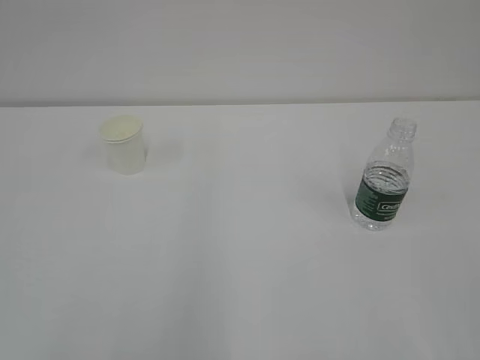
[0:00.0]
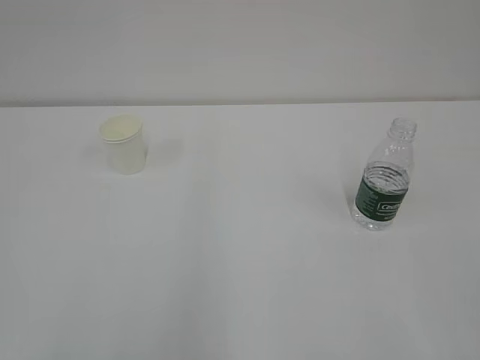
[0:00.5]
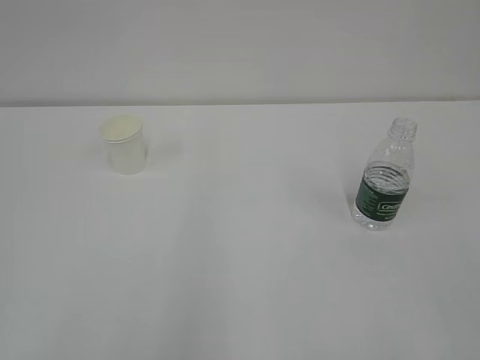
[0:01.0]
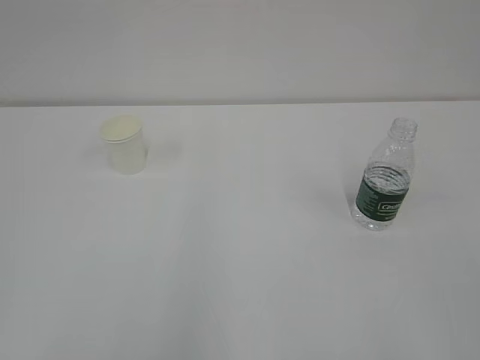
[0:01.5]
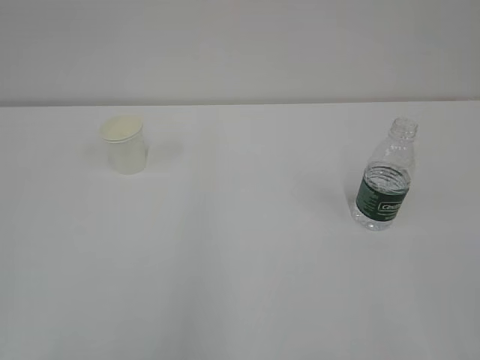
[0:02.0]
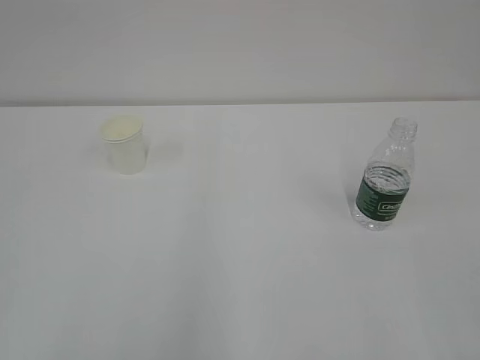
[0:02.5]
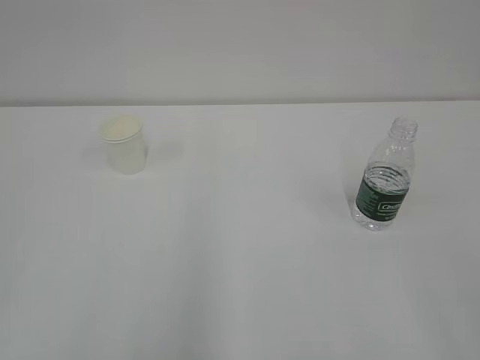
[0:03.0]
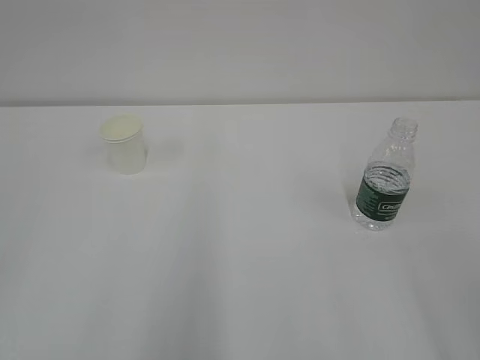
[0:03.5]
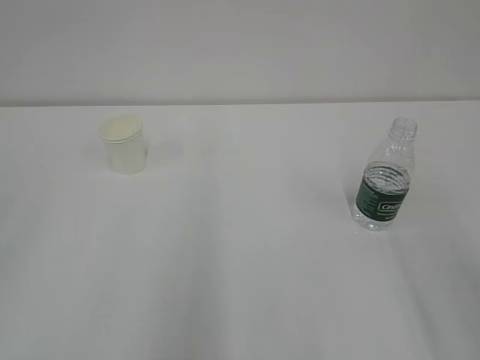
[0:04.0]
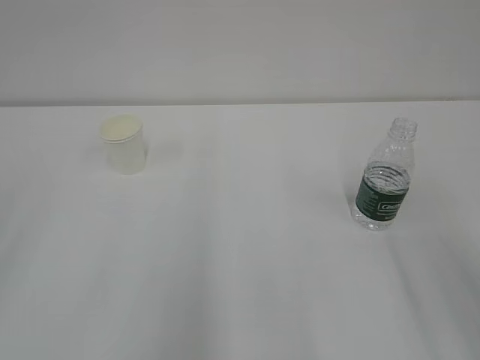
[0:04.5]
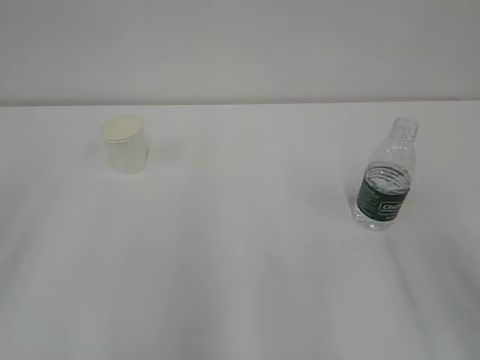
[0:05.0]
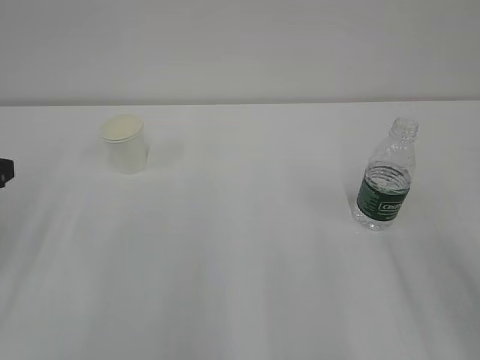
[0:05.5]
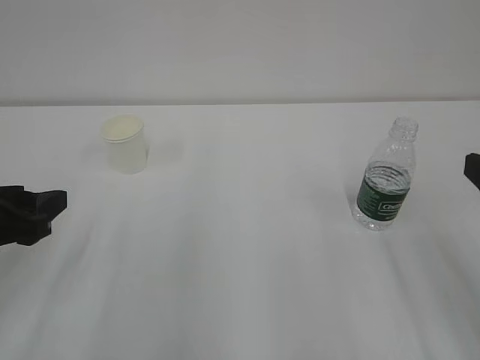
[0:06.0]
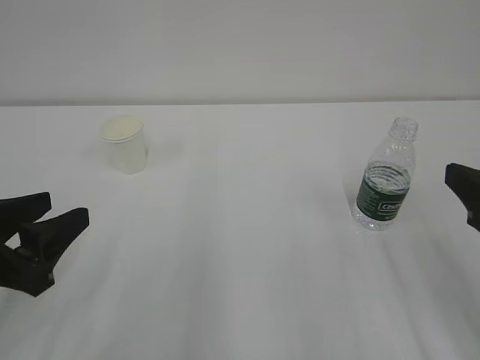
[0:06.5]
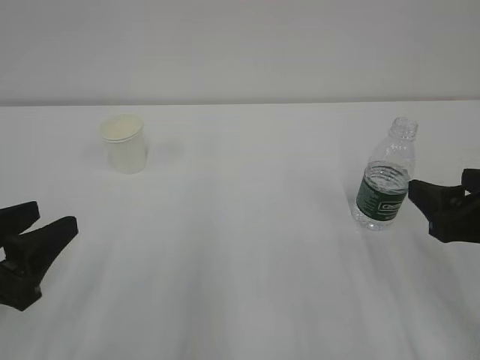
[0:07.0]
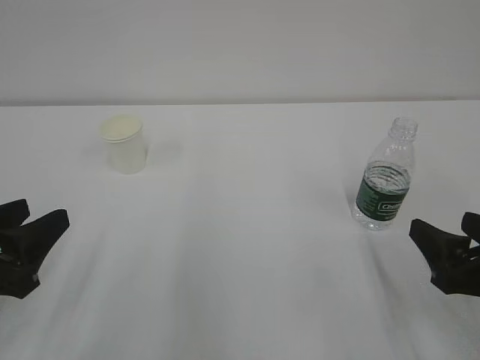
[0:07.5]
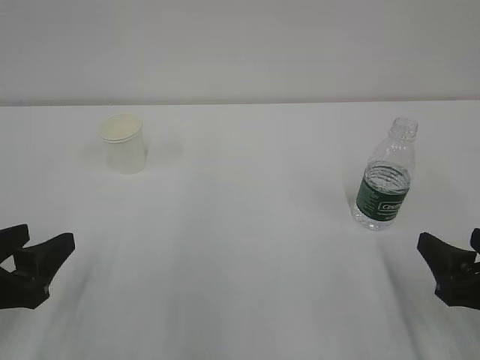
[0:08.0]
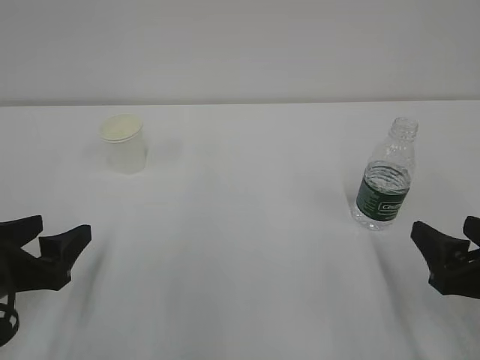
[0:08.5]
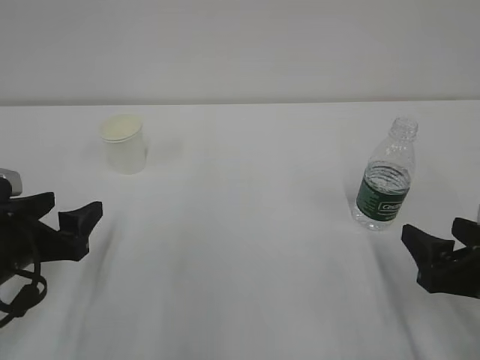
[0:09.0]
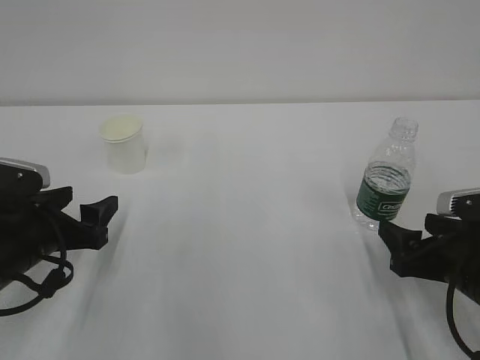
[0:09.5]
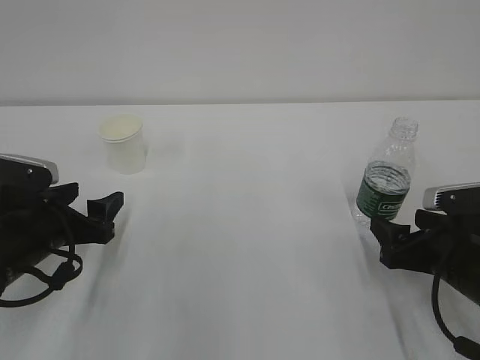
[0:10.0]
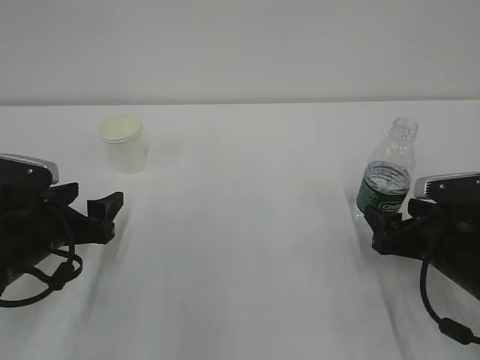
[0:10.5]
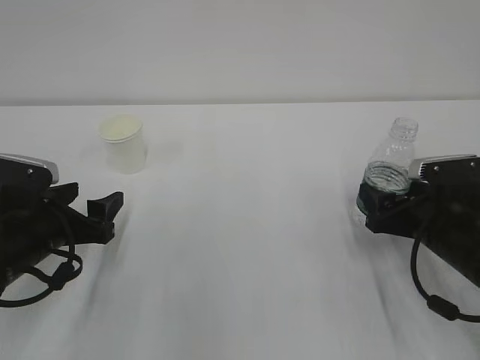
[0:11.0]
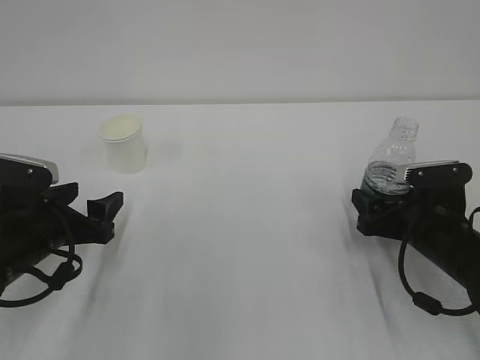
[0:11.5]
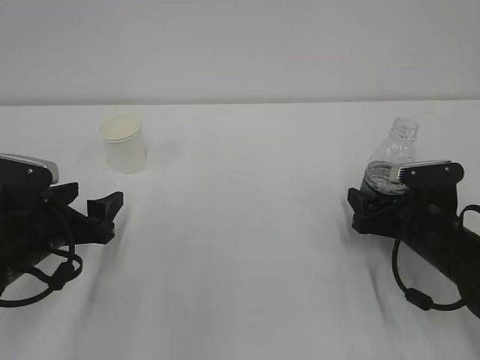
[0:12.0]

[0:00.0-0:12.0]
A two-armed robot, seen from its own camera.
0:04.0 to 0:06.0: The left gripper goes about 15 cm downward and forward.
0:06.0 to 0:08.0: The left gripper changes place by some 5 cm, and opens its fingers. Meanwhile the right gripper is displaced downward by approximately 10 cm.
0:08.0 to 0:10.0: The two grippers go some 10 cm forward.
0:10.0 to 0:12.0: The right gripper is displaced forward by some 5 cm.

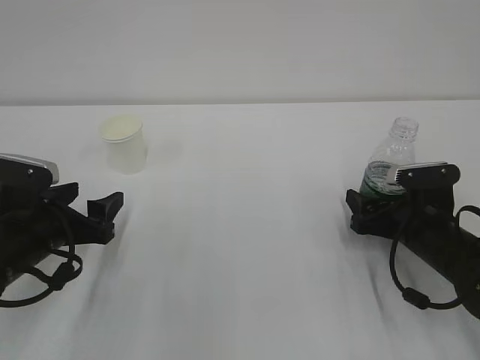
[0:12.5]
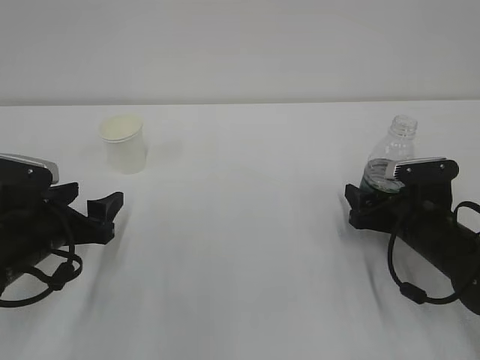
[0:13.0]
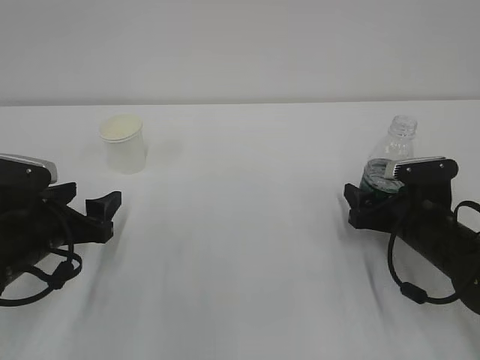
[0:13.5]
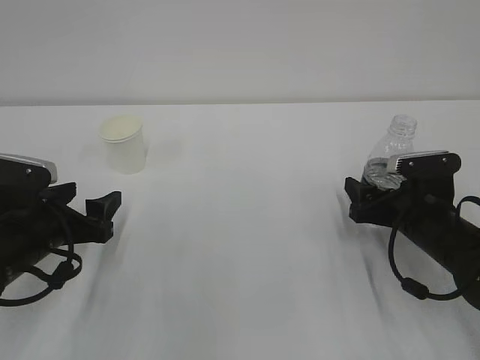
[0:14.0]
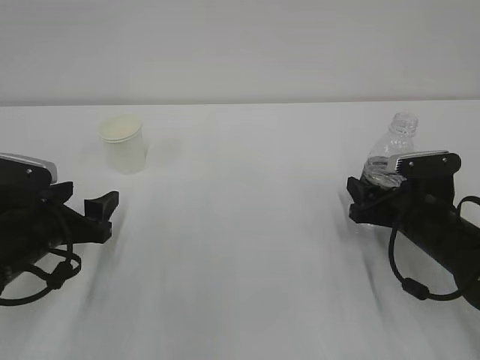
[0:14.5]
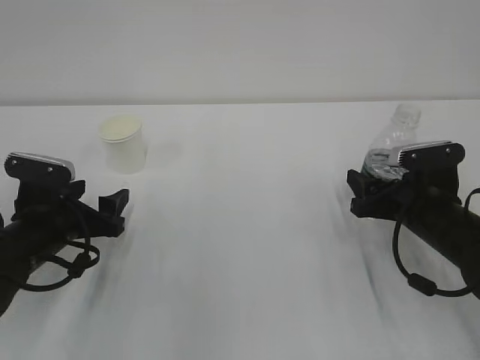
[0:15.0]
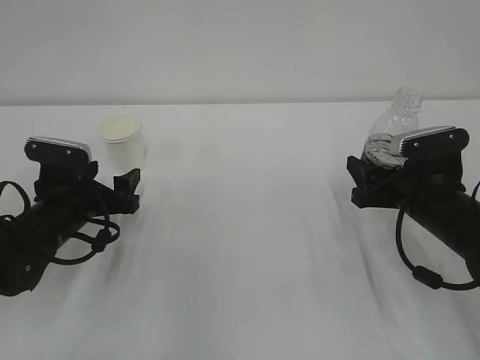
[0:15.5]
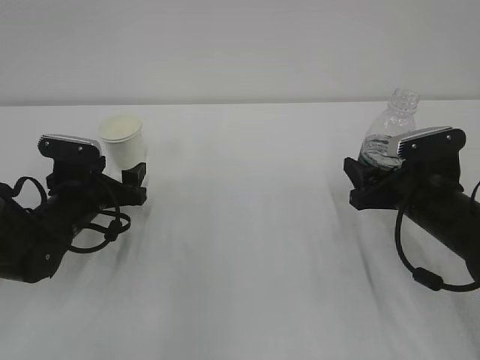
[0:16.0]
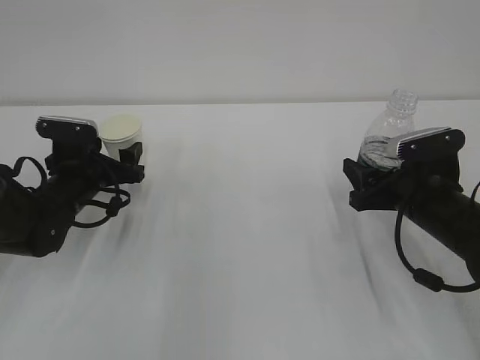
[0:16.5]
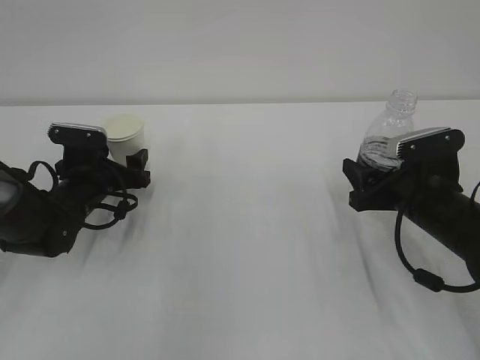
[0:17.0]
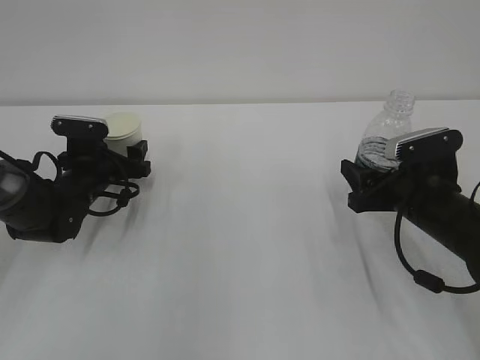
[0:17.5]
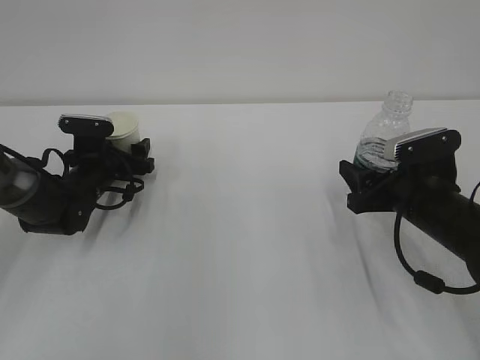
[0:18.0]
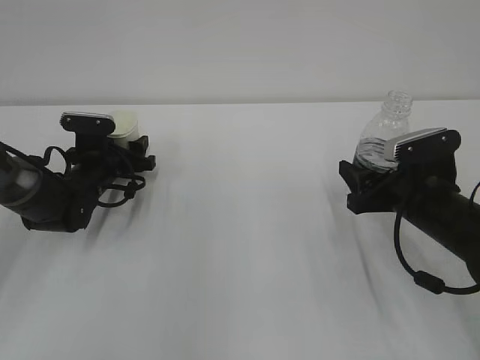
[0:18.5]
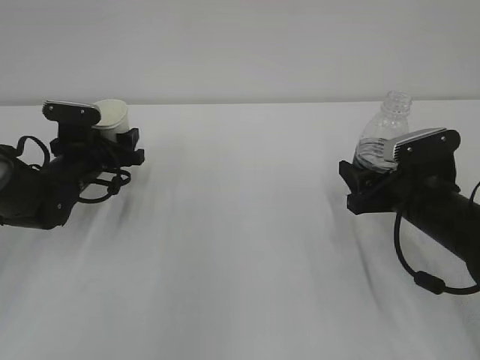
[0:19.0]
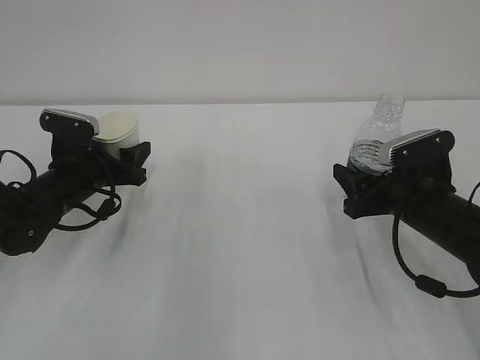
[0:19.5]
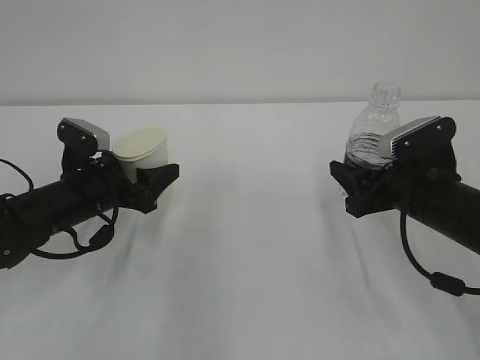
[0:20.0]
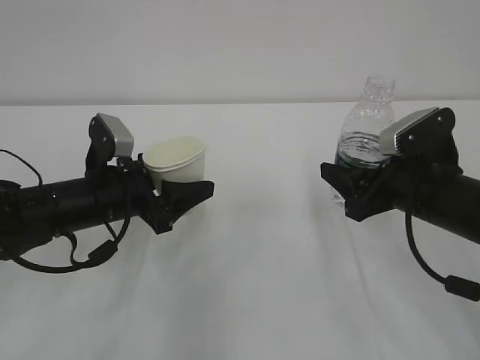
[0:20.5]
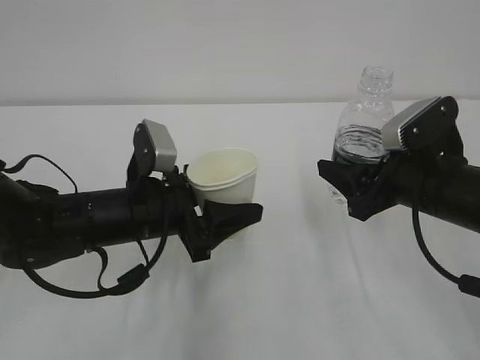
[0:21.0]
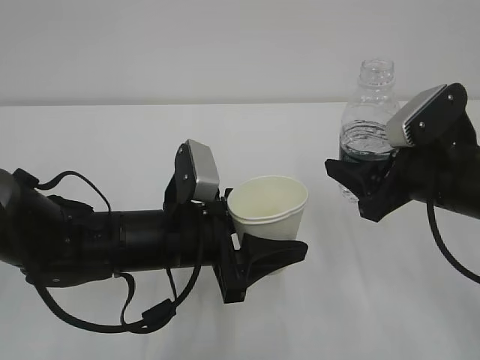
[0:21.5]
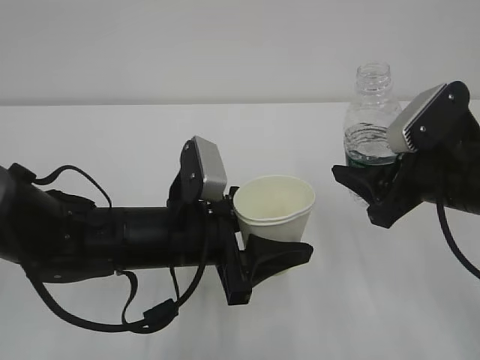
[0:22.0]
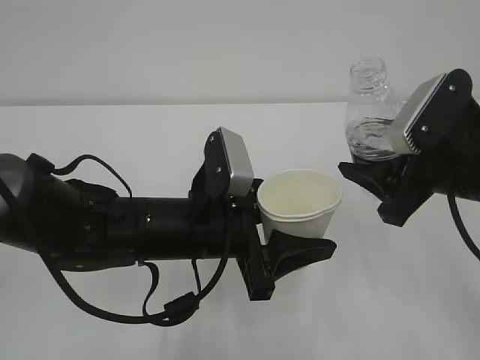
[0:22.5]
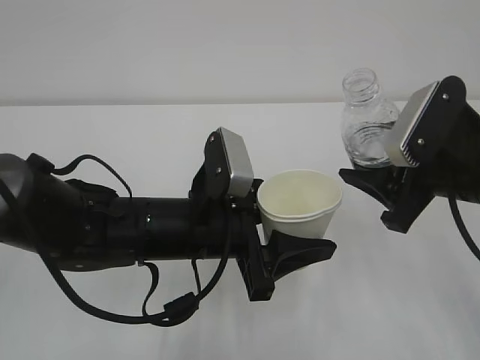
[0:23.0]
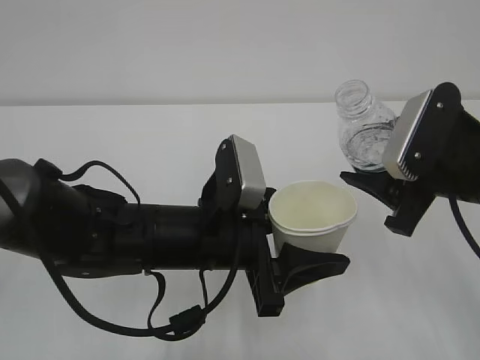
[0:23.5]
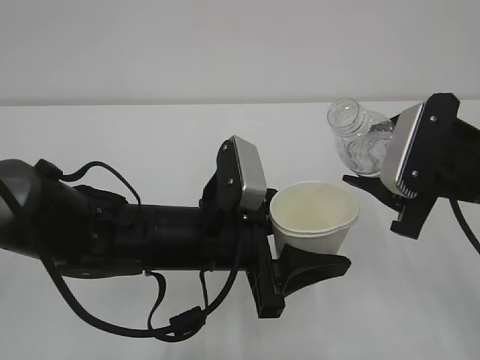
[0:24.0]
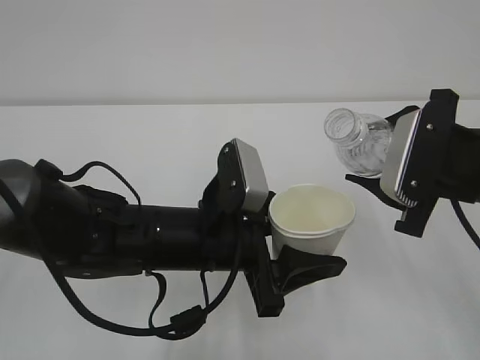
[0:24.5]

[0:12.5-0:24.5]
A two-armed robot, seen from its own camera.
0:12.5 to 0:14.5: The right gripper closes.
0:14.5 to 0:16.5: The left gripper moves forward, about 10 cm.
0:16.5 to 0:18.5: The left gripper moves forward, approximately 5 cm, and closes.
0:18.5 to 0:20.5: The left gripper goes approximately 15 cm backward, upward and to the right; the right gripper moves roughly 5 cm.
0:20.5 to 0:22.5: The right gripper goes about 5 cm upward. The left gripper moves to the right and backward, roughly 15 cm.

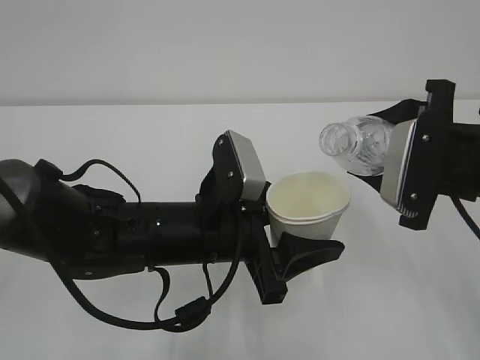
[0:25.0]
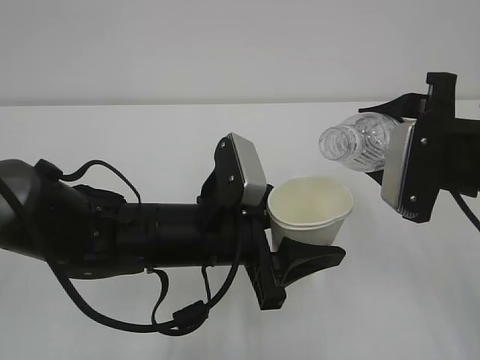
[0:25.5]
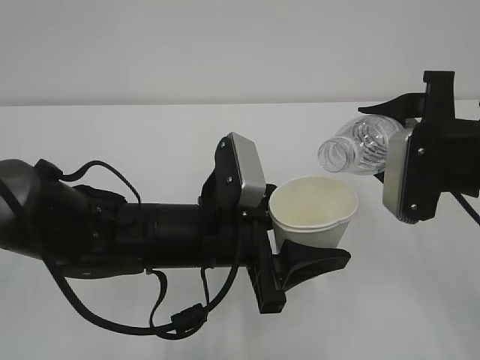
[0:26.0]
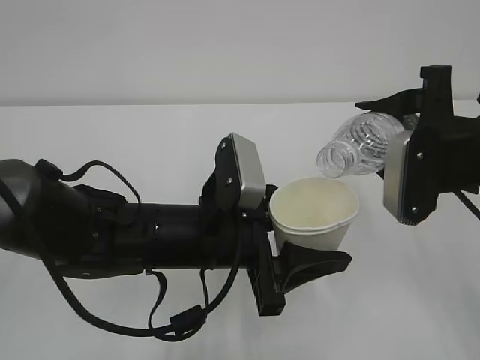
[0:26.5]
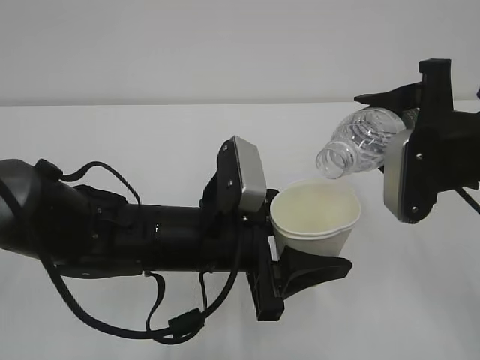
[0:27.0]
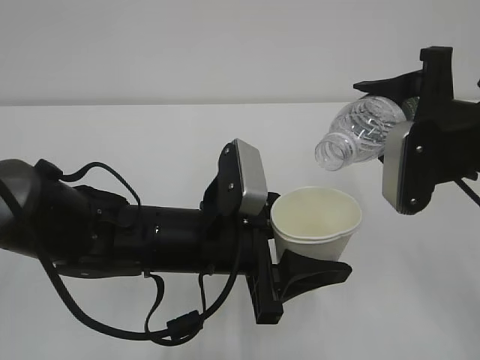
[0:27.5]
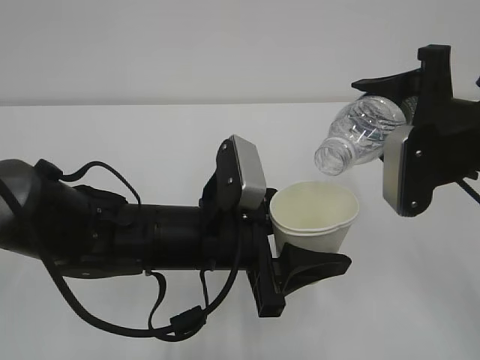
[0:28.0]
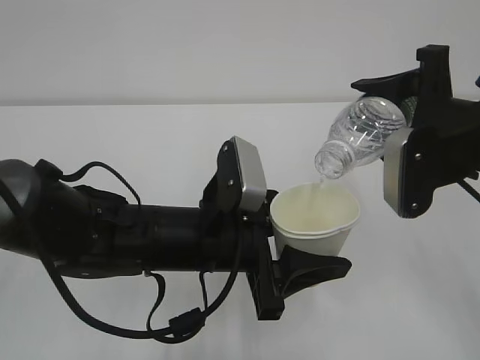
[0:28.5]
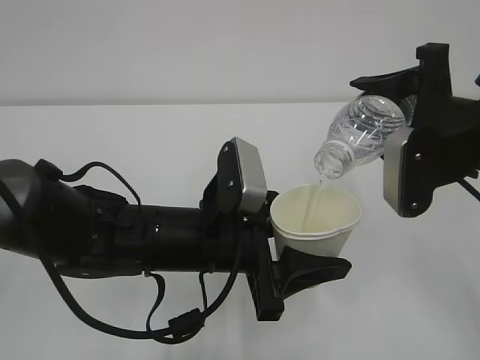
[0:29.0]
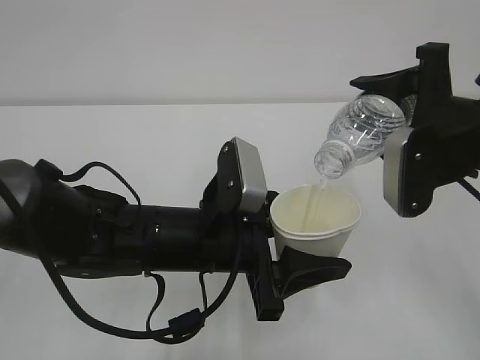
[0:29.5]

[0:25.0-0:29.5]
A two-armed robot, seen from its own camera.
0:27.0 to 0:29.5: The grippers stay close to where they were, moving slightly.
